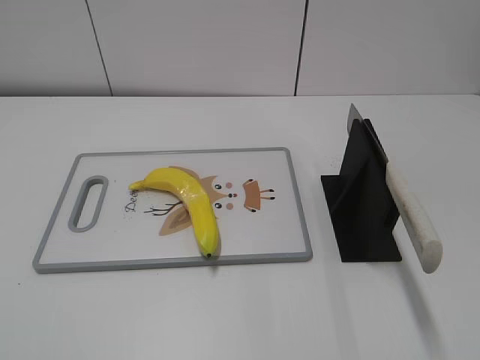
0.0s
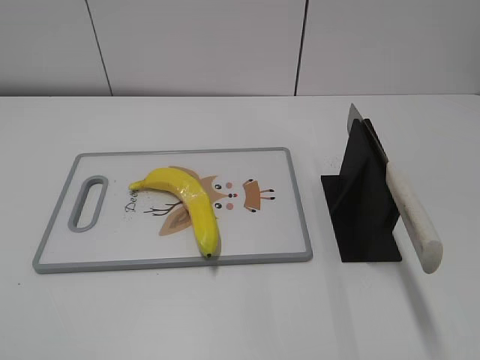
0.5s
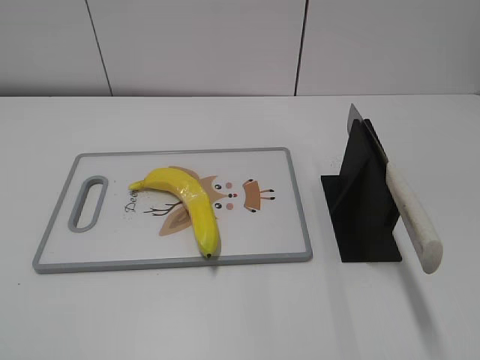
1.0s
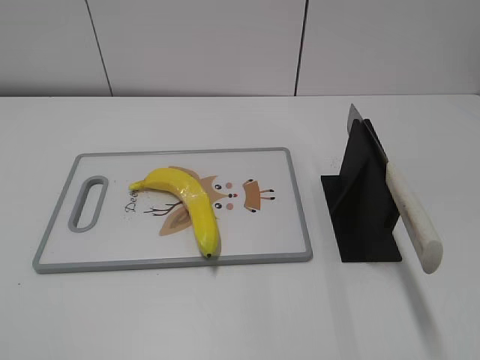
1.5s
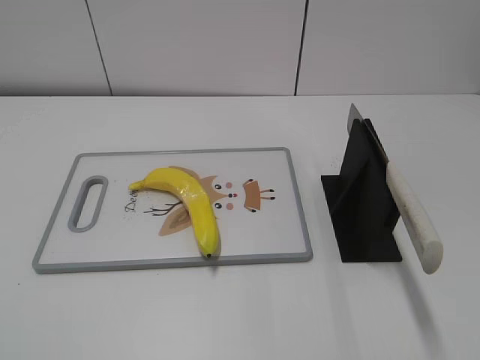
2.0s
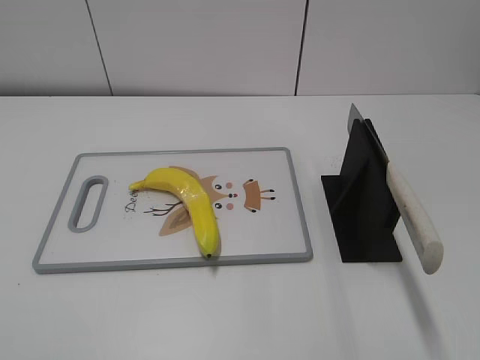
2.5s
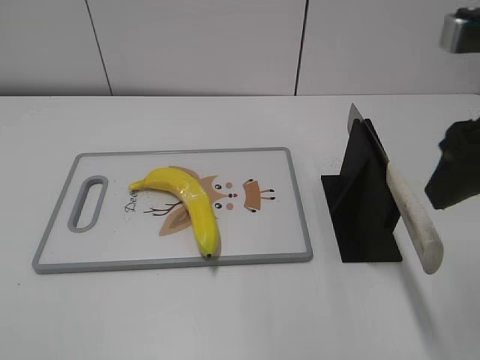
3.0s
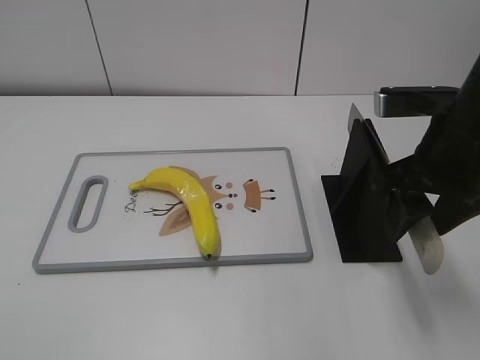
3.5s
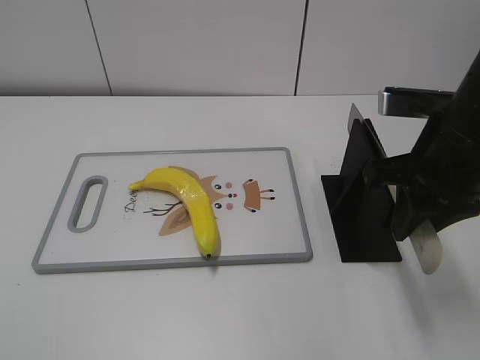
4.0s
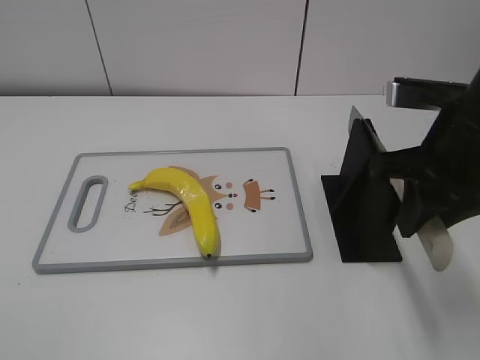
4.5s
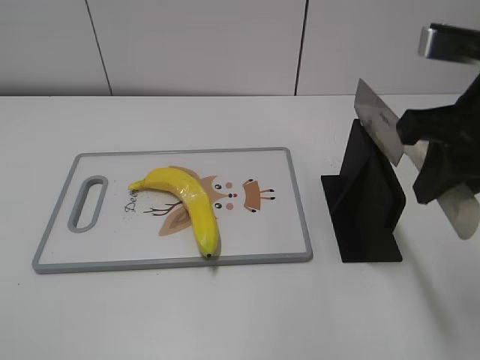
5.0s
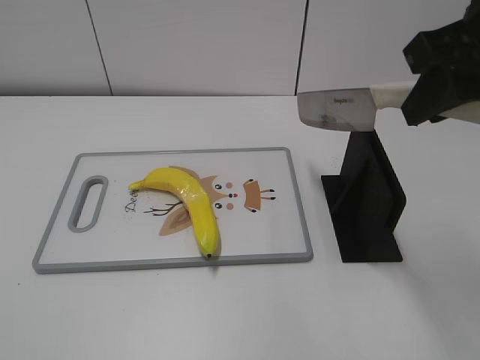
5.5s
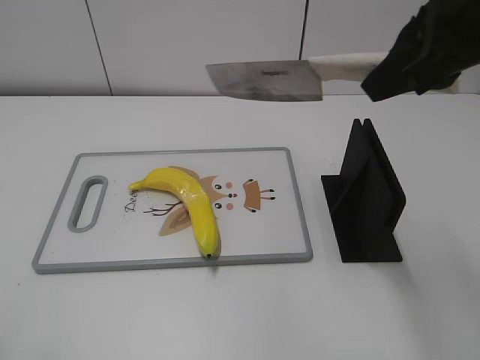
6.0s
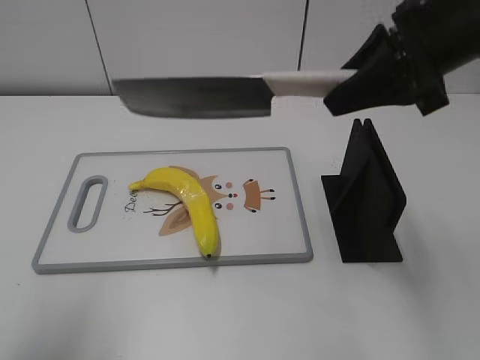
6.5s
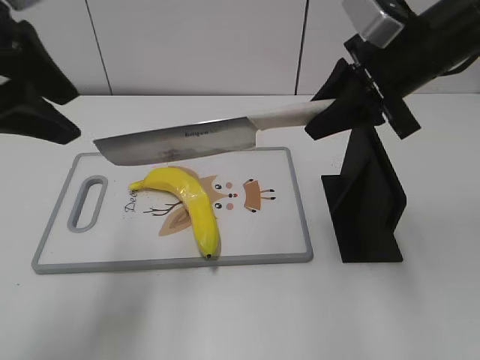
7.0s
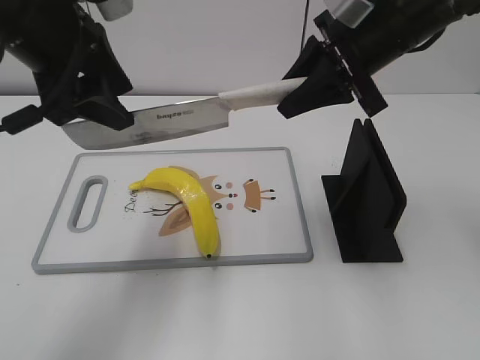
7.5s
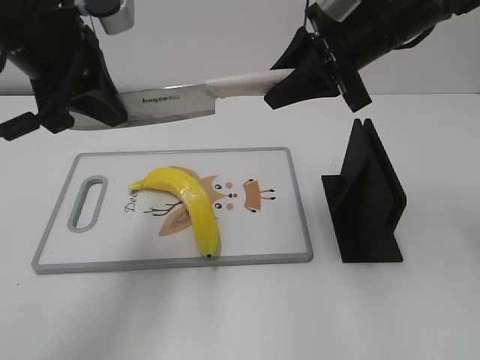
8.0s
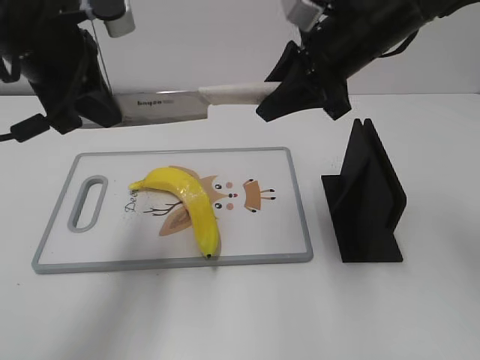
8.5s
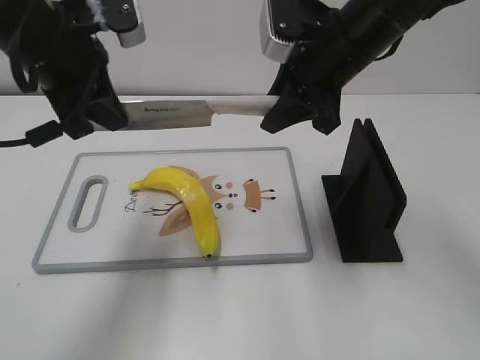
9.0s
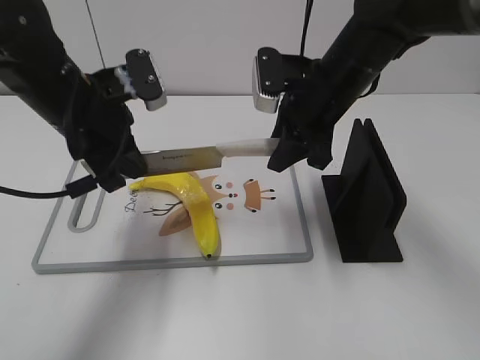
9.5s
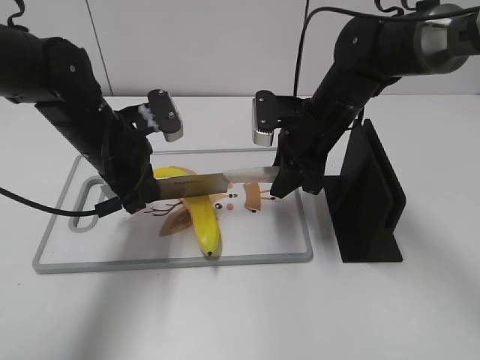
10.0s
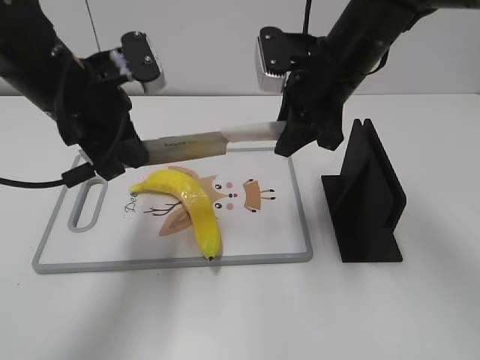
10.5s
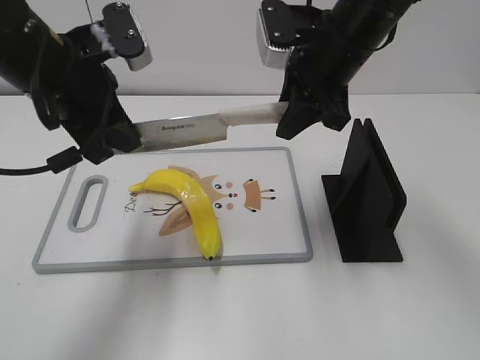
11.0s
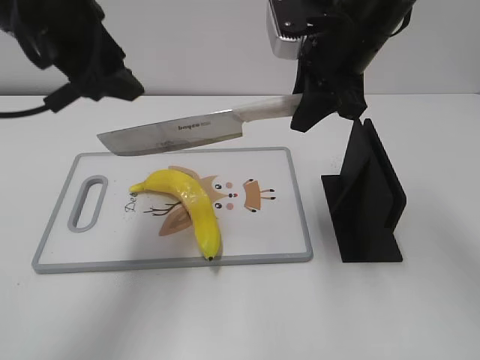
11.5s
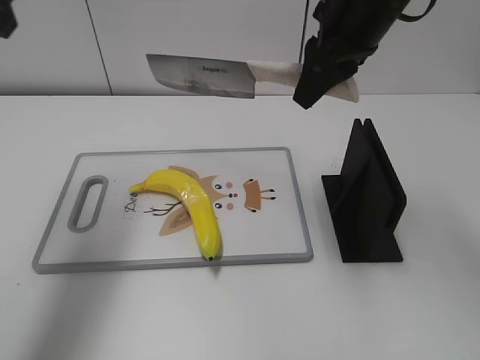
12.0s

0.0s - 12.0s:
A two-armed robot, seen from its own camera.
Task of the whole recording: cut plastic banana.
Step, 0.0s - 4.5s: Grab the knife handle with your right hand.
Step, 5.0s - 9.5s: Lift the knife with your right hand.
2.0s - 4.0s: The right gripper moves forward, to the left and downward, approximately 25 cm, and closes.
4.0s - 6.0s: The left gripper goes roughly 5 cm forward; the right gripper is displaced upward by about 10 cm.
6.0s - 8.0s: The right gripper moves forward and downward, about 15 cm; the left gripper heads forward and to the right, covering about 30 cm, and closes.
8.0s - 10.0s: The two grippers go roughly 15 cm downward.
10.0s - 12.0s: The right gripper goes some 15 cm upward. Meanwhile the left gripper goes about 25 cm upward and to the left, and opens.

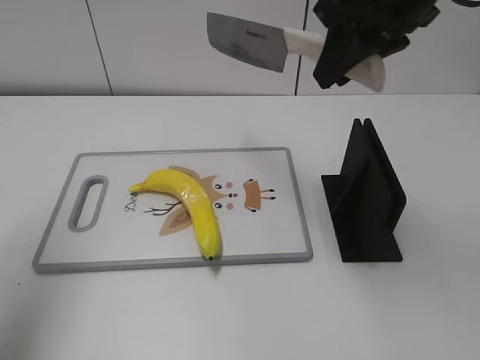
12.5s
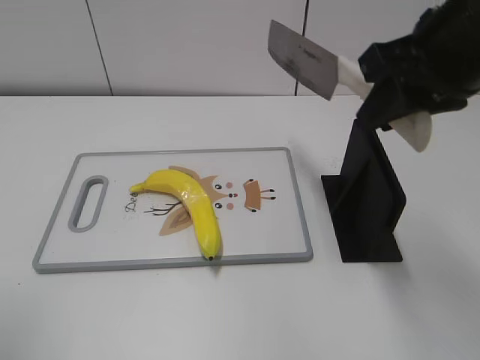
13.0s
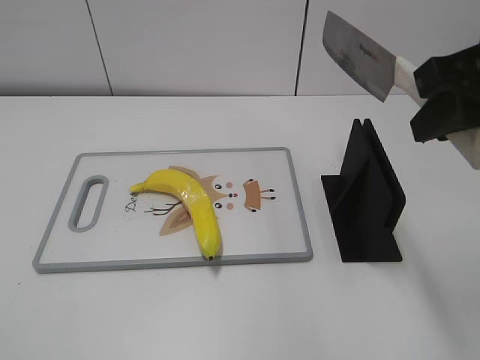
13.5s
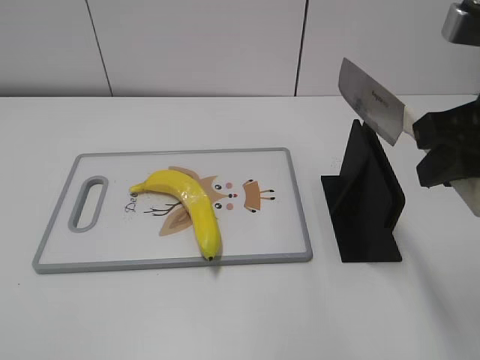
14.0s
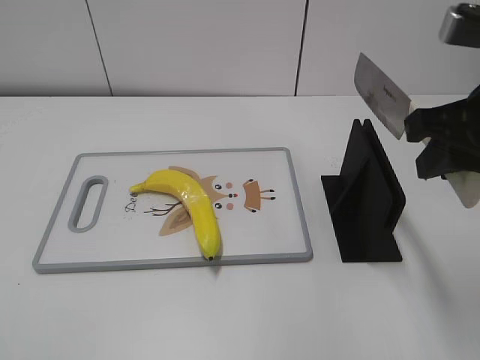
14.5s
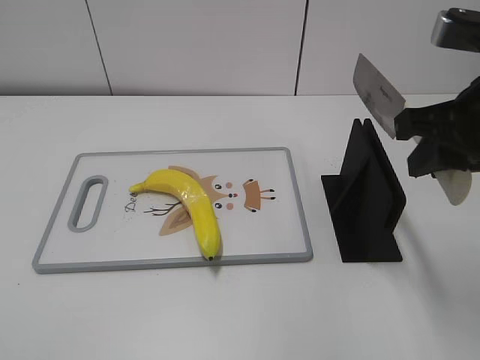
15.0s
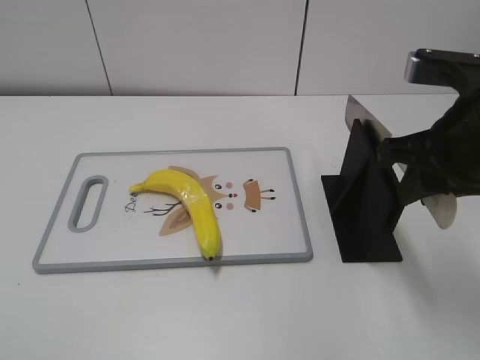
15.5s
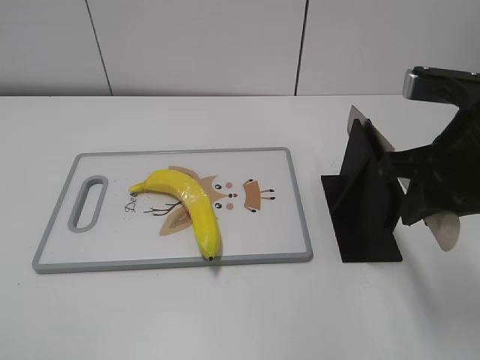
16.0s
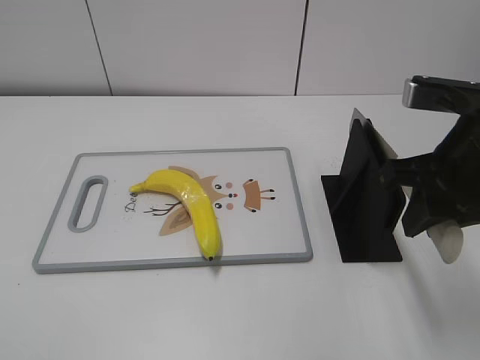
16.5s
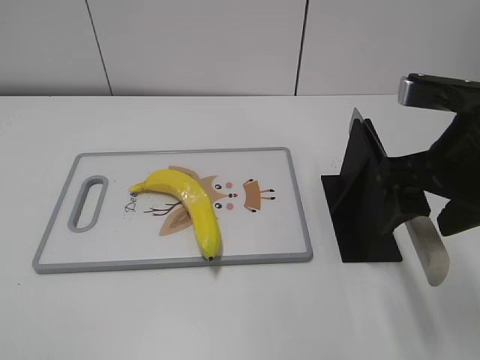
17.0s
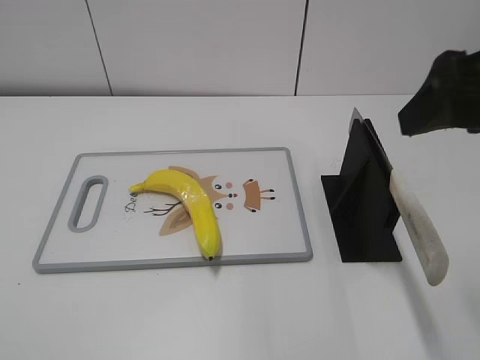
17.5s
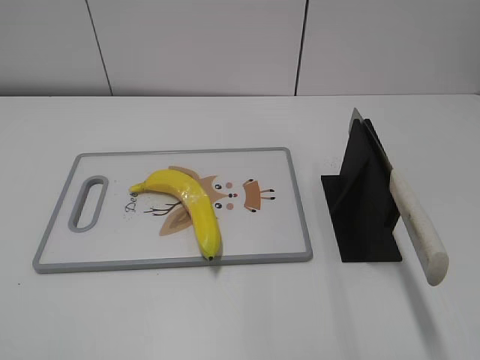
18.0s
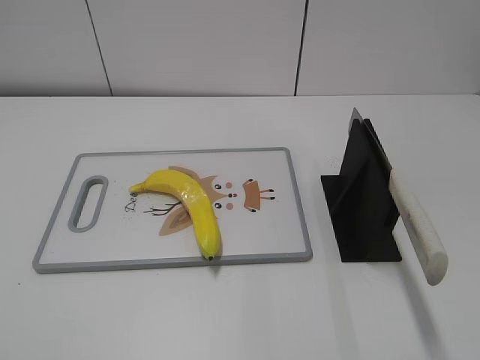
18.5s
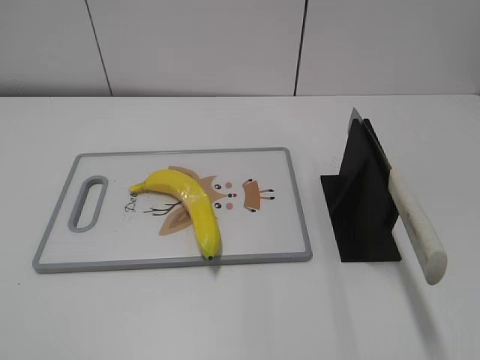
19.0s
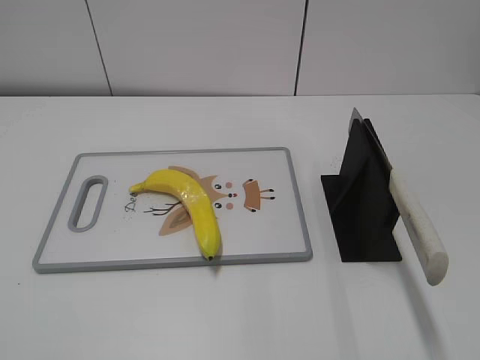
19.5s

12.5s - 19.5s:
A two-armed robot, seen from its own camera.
Task of the whole recording: cut plastic banana.
Step, 12.5s - 13.0s: Lift the knife with your right hand.
Step, 13.5s - 19.5s: Place the knife on the storage rack with your right hand.
12.5s - 14.5s: The right gripper is displaced backward, to the right and downward by roughly 15 cm. The left gripper shifts about 30 cm backward and downward.
14.5s - 16.0s: The grippers move only a little.
16.0s - 17.5s: The right gripper moves upward, approximately 10 cm, and opens.
17.5s - 19.5s: The right gripper moves backward and to the right, some 25 cm.

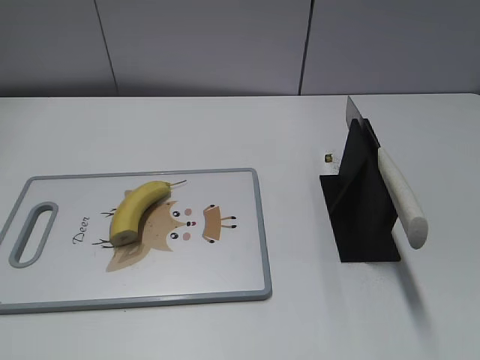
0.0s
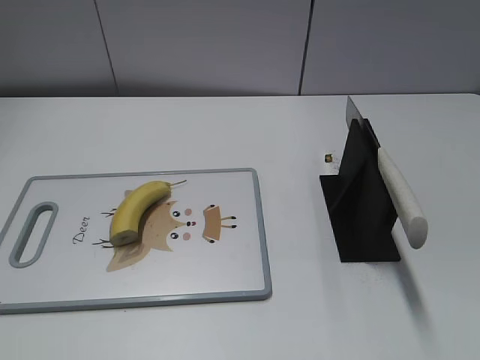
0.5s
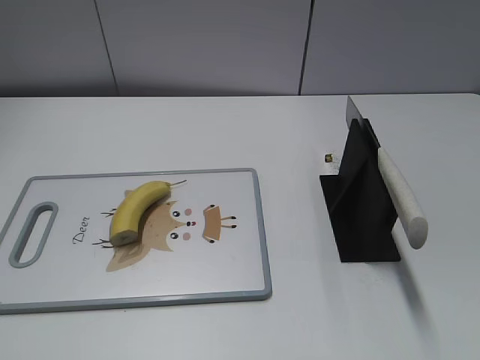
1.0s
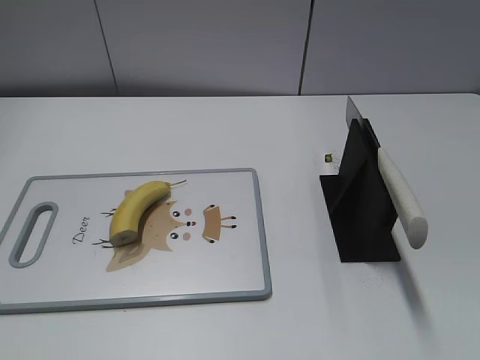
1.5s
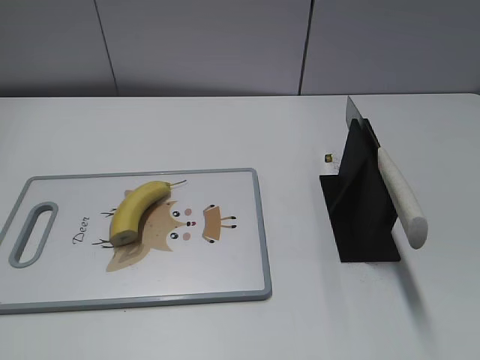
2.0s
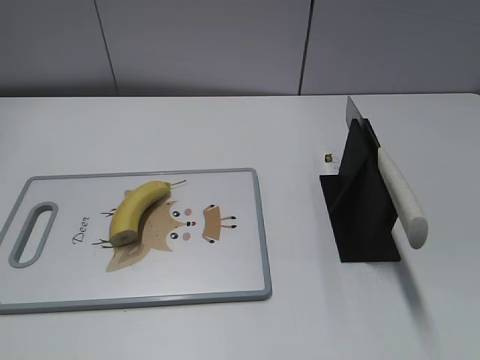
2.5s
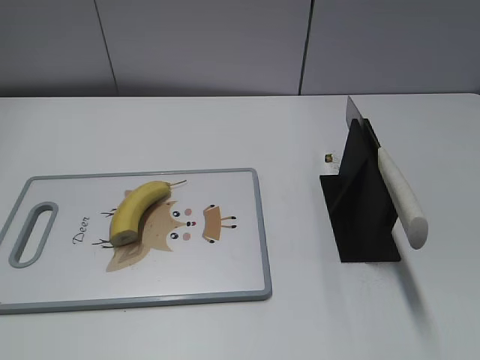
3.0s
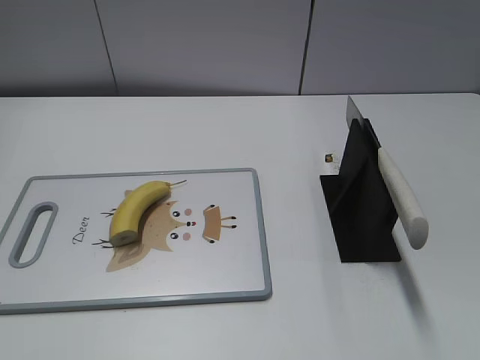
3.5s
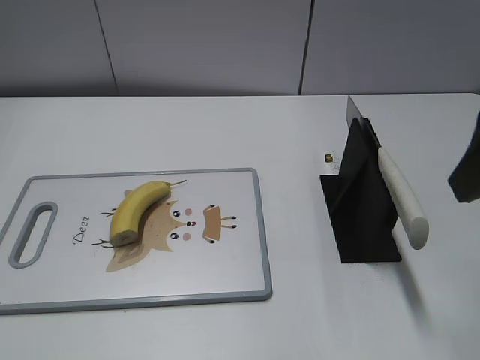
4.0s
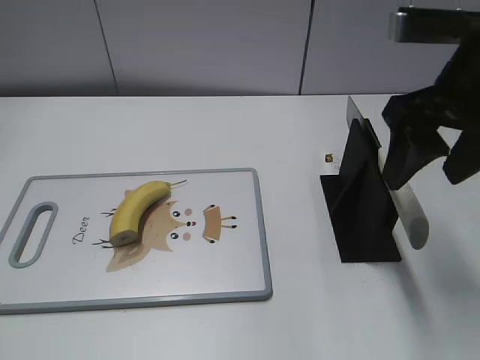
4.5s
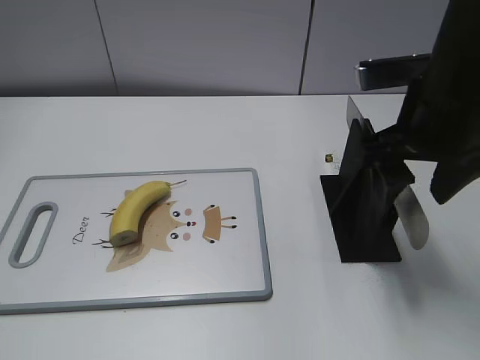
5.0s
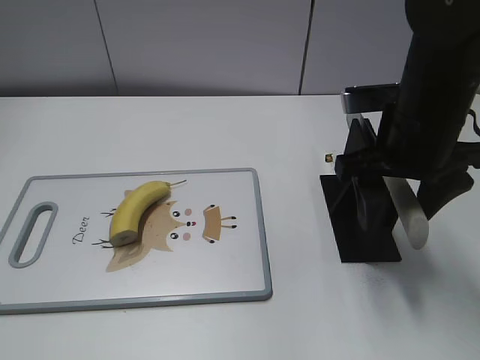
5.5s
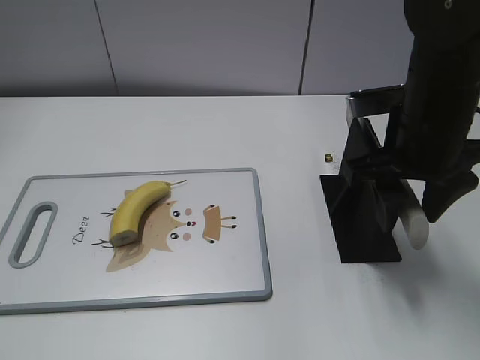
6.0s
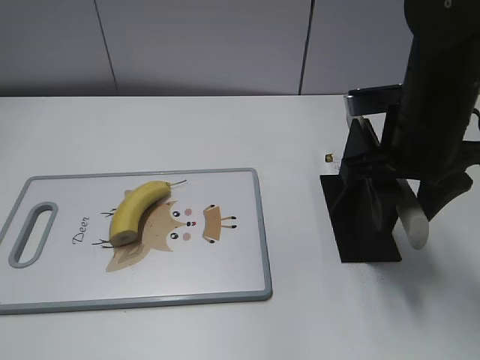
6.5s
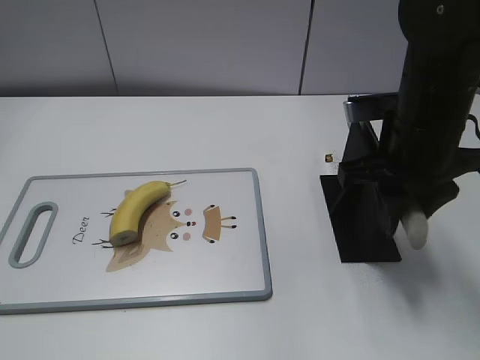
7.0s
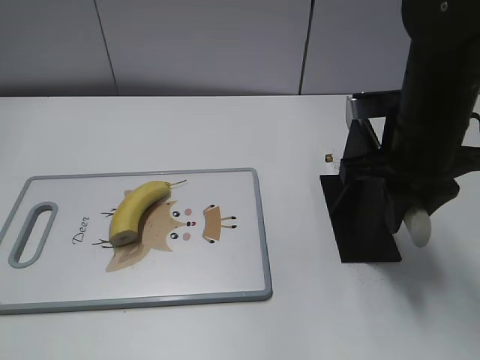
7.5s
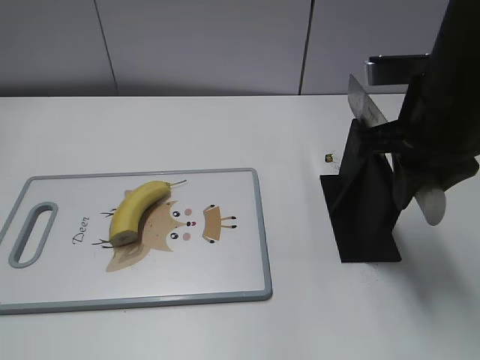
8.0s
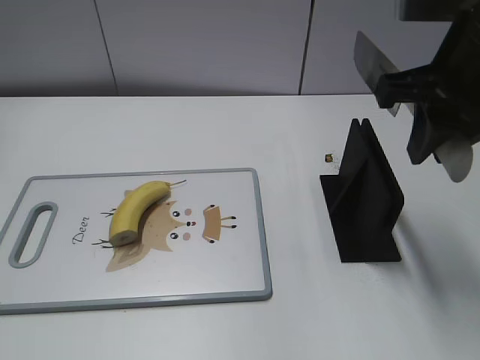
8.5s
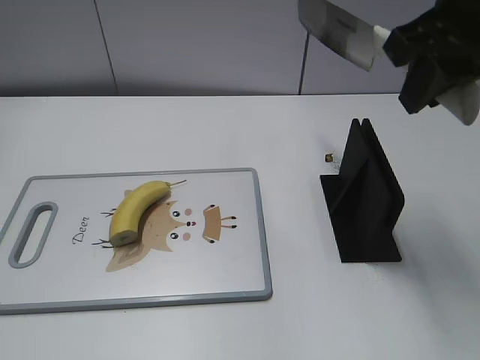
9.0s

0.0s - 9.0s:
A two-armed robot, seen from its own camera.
Task of the whole recording: cut banana.
Step, 0.0s - 8.5s: Grab the knife handle with your right hand.
2.0s - 4.5s: The right gripper shifts about 30 cm forward and to the left.
4.5s - 7.0s: The right gripper goes roughly 10 cm downward, and closes.
7.0s - 9.0s: The right gripper moves upward, about 15 cm.
